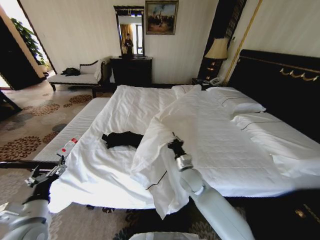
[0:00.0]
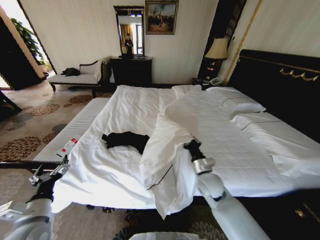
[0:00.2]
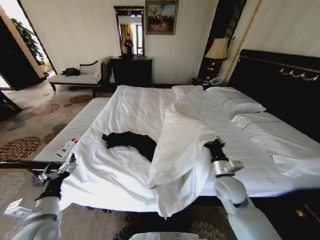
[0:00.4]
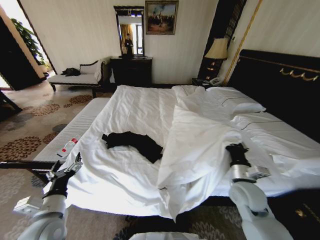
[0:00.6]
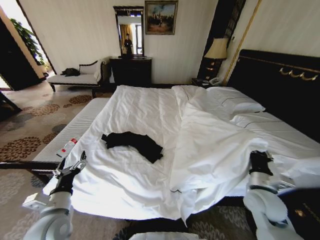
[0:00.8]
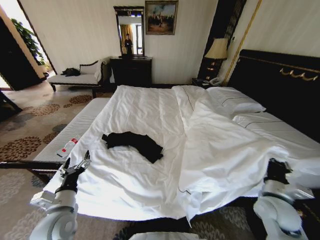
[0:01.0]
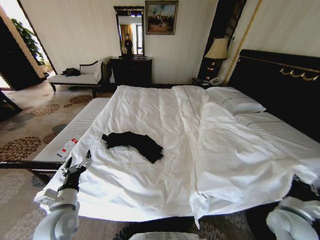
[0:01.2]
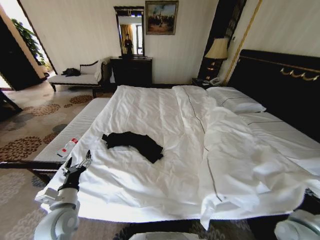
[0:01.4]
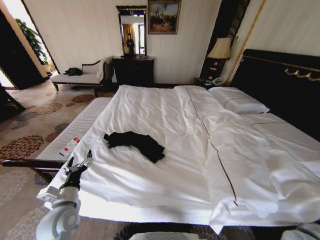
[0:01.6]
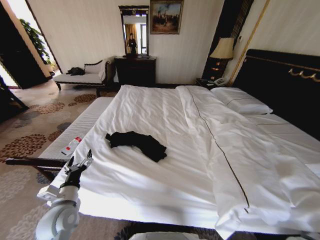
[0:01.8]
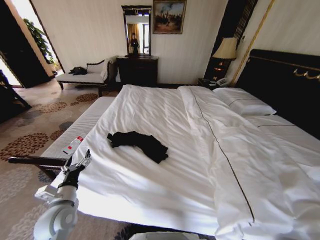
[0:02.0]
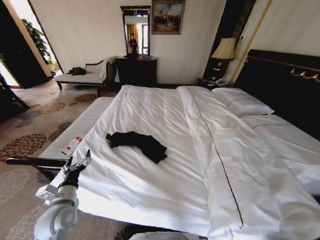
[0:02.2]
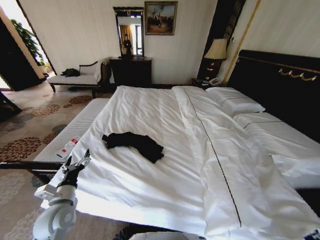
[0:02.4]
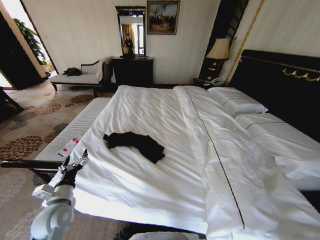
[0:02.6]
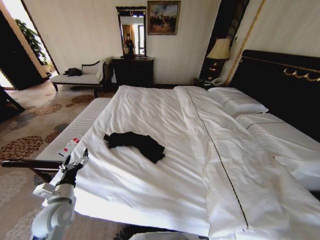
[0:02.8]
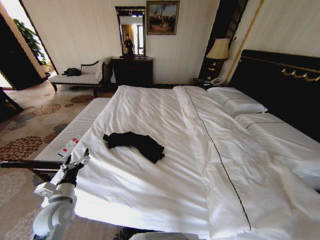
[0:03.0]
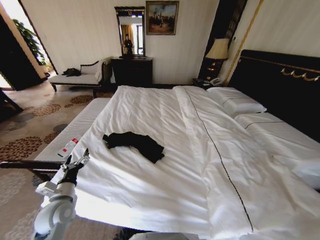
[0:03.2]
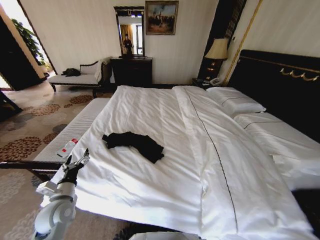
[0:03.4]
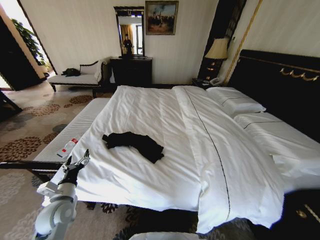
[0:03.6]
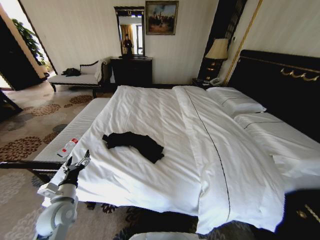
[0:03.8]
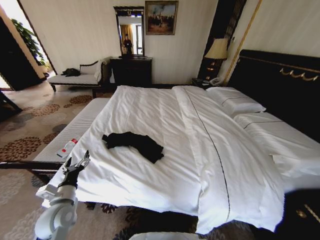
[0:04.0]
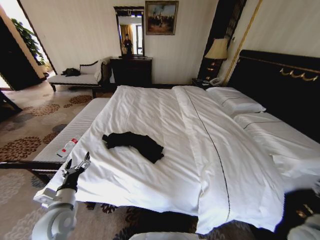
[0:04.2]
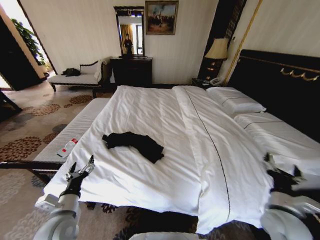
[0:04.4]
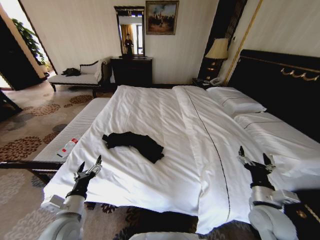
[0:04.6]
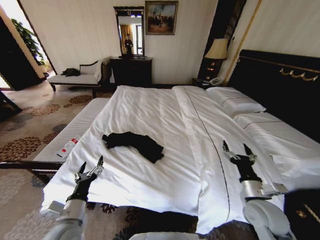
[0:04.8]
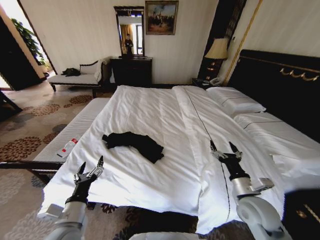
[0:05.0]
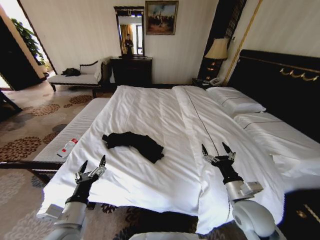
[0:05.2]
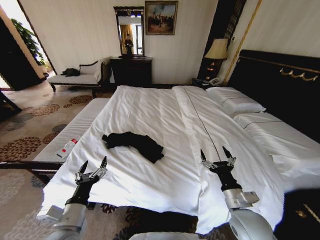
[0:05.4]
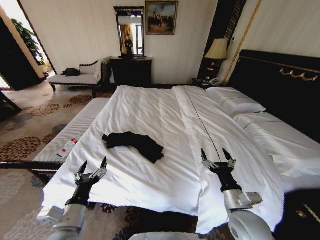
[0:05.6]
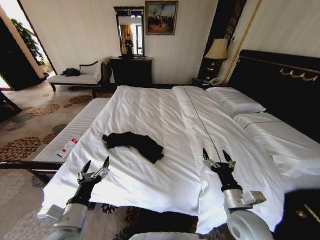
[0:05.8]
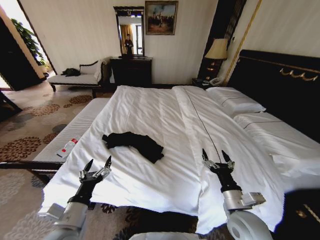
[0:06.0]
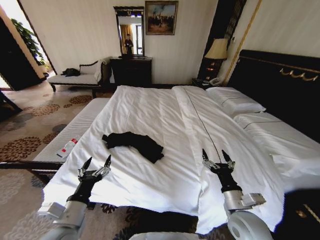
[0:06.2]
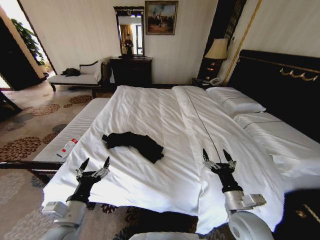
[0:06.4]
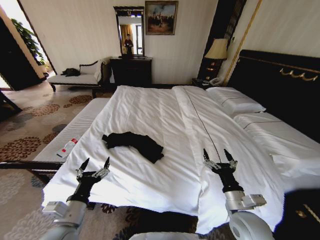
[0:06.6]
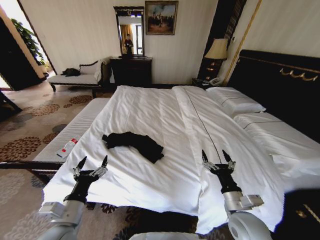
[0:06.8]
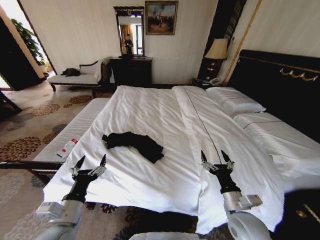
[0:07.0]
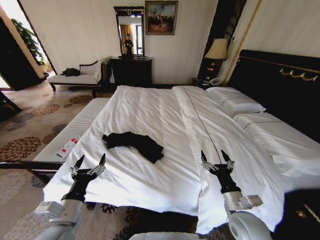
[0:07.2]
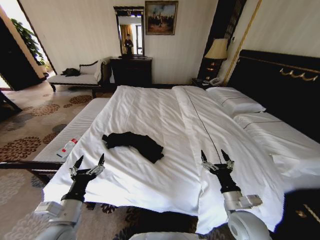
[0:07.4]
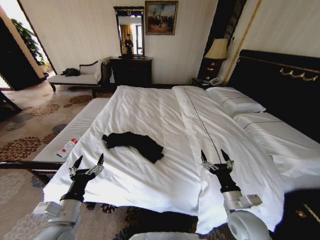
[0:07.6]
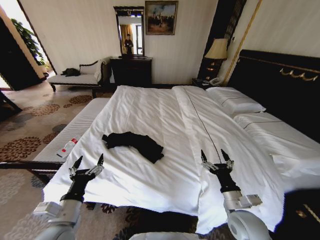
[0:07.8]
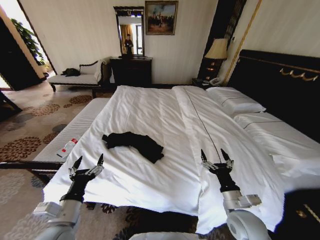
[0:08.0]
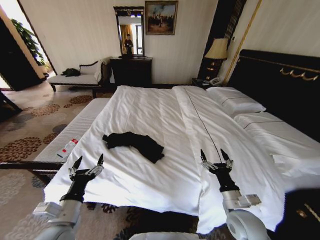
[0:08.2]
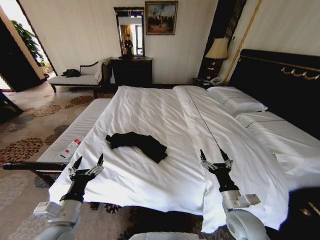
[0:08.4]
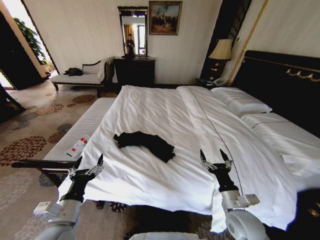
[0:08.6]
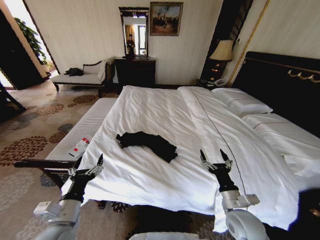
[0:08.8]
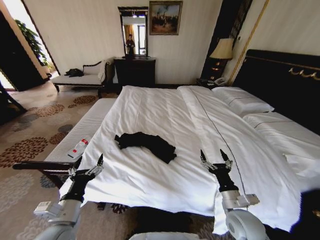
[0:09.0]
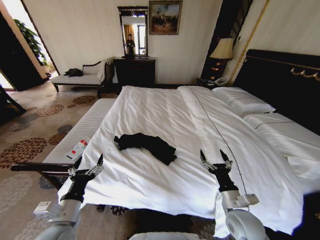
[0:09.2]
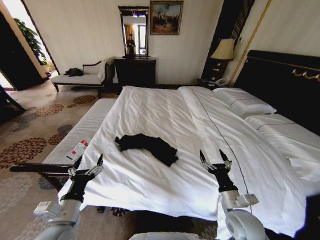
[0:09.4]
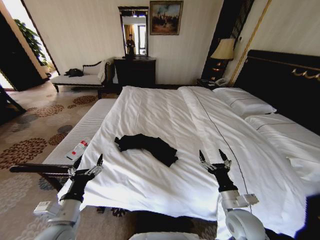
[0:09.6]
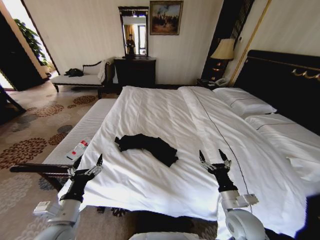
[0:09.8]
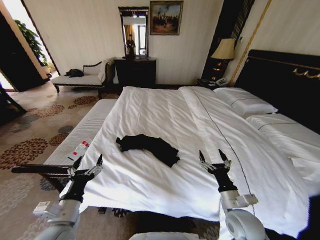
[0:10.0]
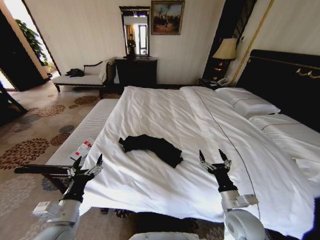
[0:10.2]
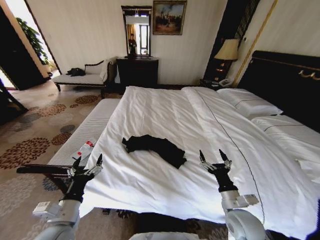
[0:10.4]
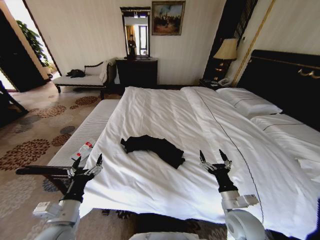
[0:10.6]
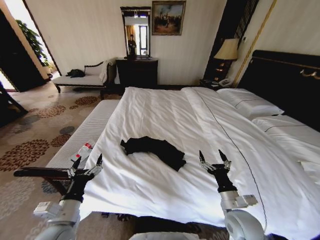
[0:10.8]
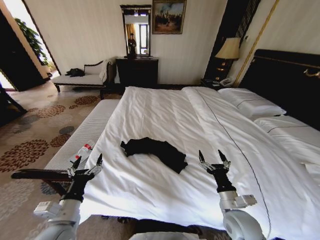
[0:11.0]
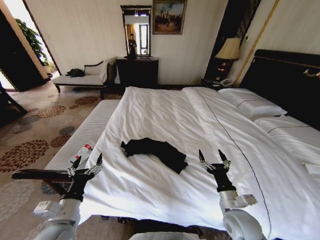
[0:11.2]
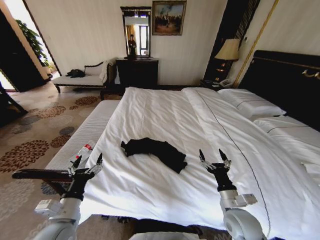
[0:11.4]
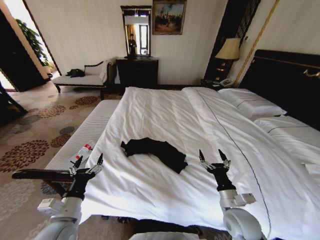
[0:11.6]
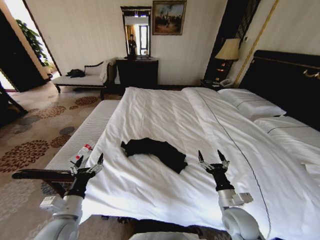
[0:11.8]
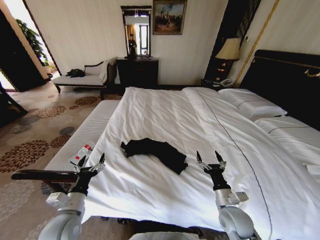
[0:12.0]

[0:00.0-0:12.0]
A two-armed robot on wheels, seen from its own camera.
Task of the whole recording: Fold the clothes on the bed.
0:00.0 to 0:01.6: The left gripper shifts by about 10 cm. Meanwhile the right gripper heads to the right and backward, covering roughly 40 cm.
0:01.6 to 0:03.0: The right gripper travels backward by approximately 5 cm, reaches about 10 cm downward, then returns, and opens its fingers.
0:03.0 to 0:04.4: The left gripper shifts by about 5 cm. The right gripper shifts some 15 cm forward, to the left and upward.
0:04.4 to 0:06.0: The left gripper ends up roughly 5 cm from where it was. Meanwhile the right gripper is displaced to the left by some 15 cm.
0:06.0 to 0:07.6: The grippers stay close to where they were, moving slightly.

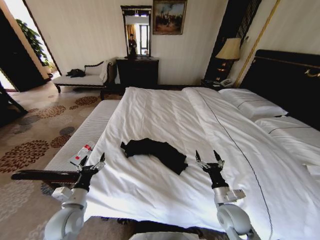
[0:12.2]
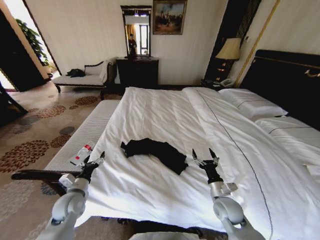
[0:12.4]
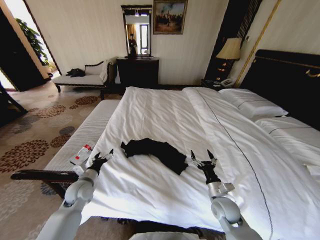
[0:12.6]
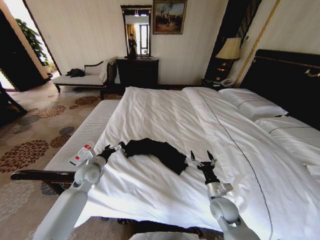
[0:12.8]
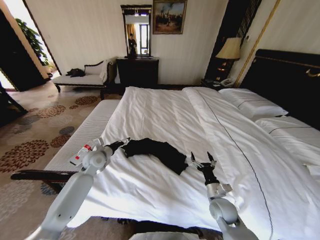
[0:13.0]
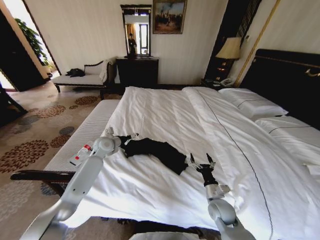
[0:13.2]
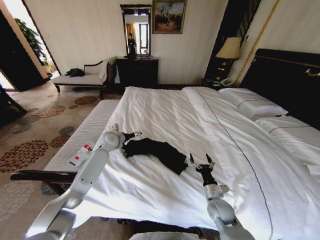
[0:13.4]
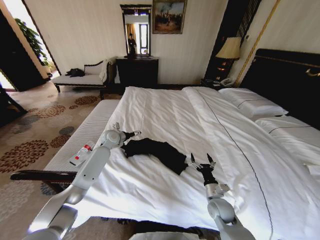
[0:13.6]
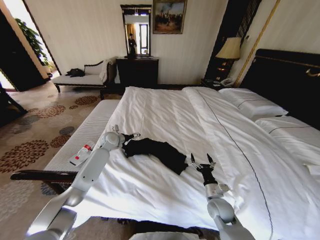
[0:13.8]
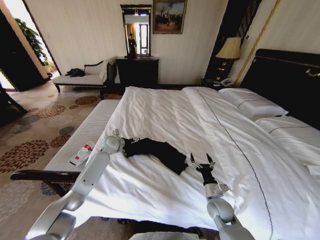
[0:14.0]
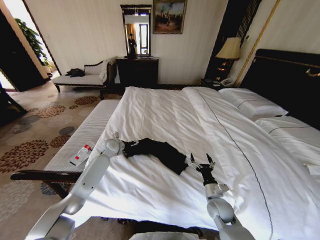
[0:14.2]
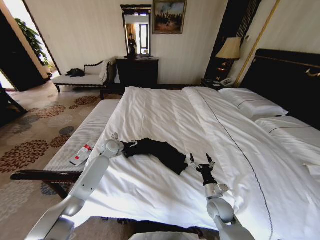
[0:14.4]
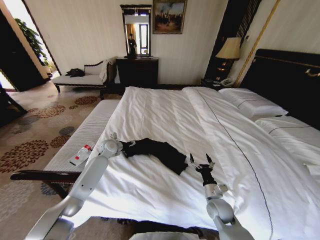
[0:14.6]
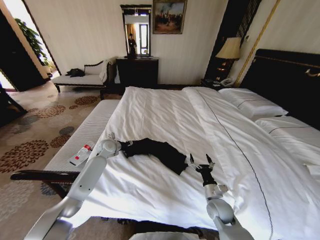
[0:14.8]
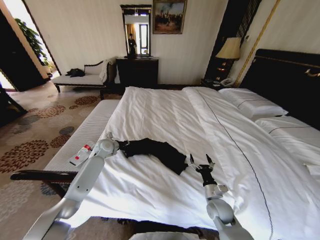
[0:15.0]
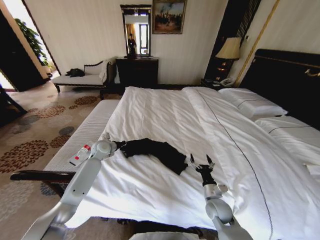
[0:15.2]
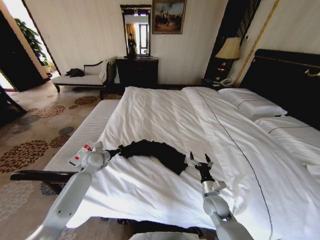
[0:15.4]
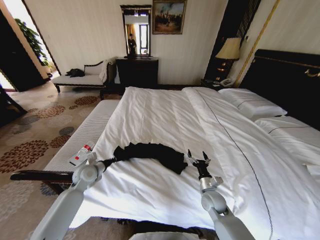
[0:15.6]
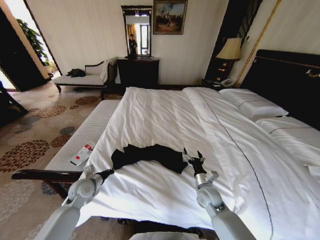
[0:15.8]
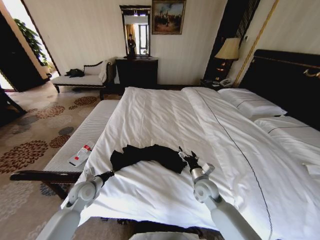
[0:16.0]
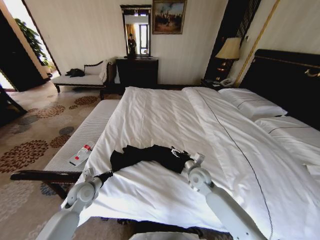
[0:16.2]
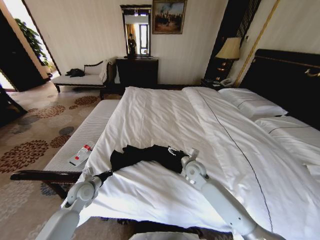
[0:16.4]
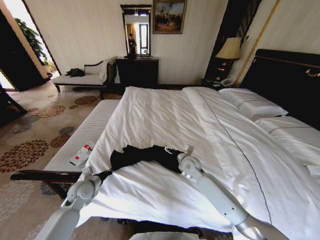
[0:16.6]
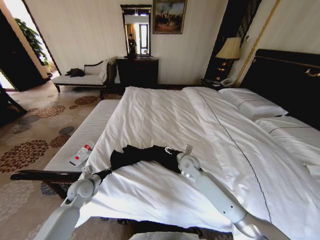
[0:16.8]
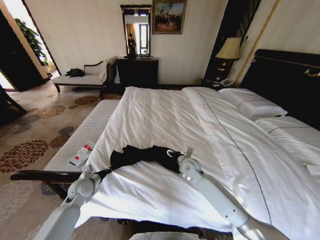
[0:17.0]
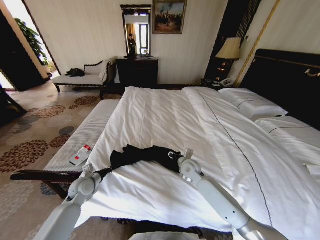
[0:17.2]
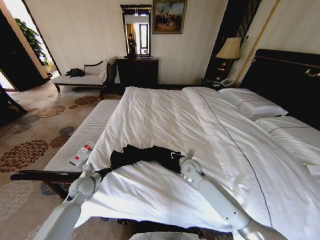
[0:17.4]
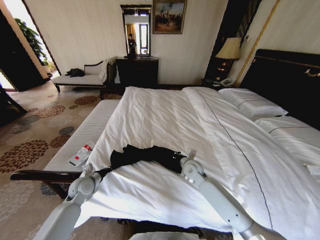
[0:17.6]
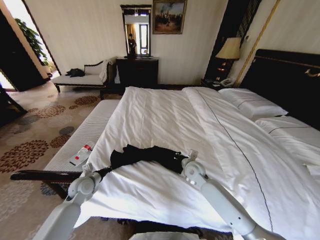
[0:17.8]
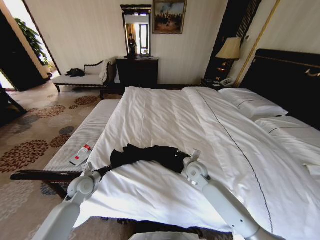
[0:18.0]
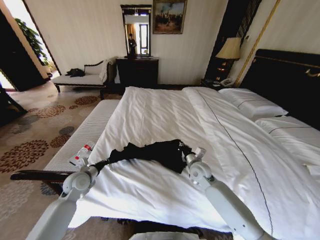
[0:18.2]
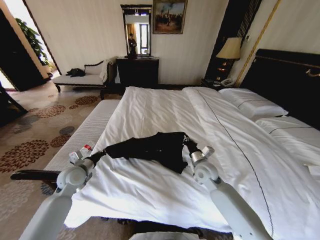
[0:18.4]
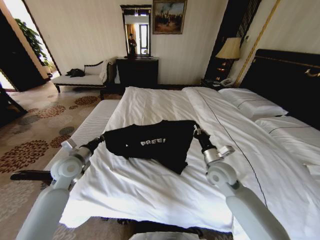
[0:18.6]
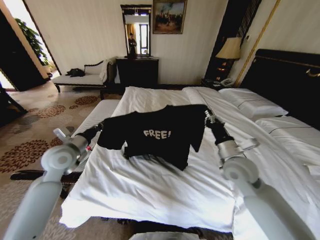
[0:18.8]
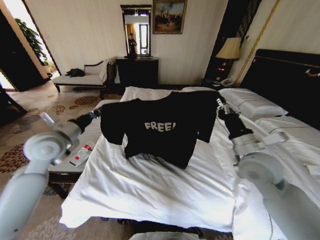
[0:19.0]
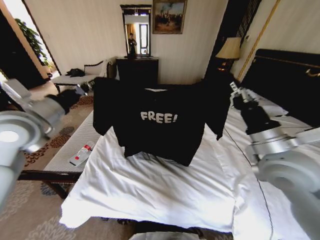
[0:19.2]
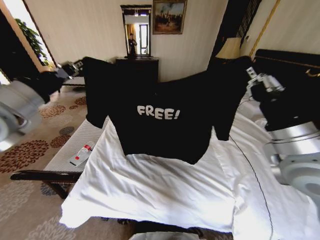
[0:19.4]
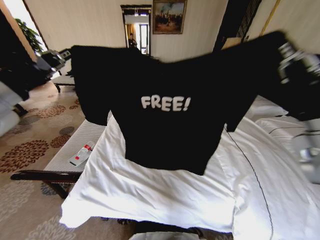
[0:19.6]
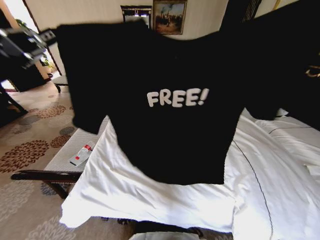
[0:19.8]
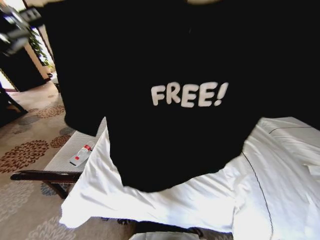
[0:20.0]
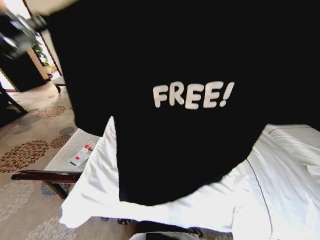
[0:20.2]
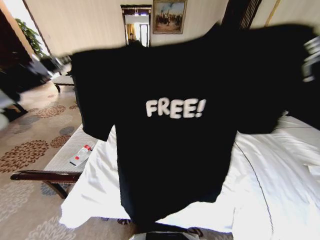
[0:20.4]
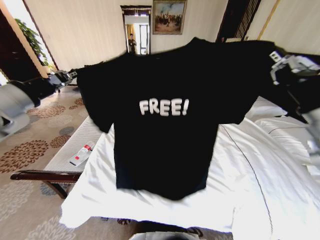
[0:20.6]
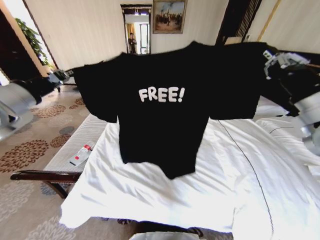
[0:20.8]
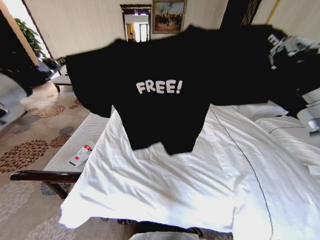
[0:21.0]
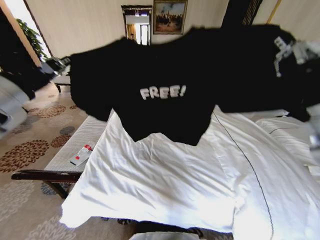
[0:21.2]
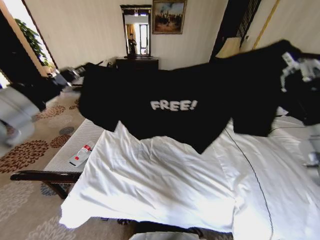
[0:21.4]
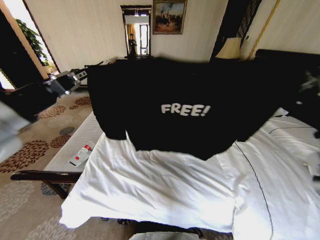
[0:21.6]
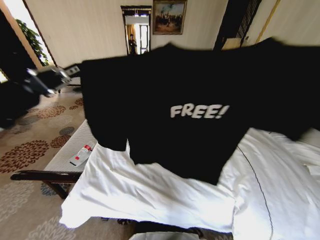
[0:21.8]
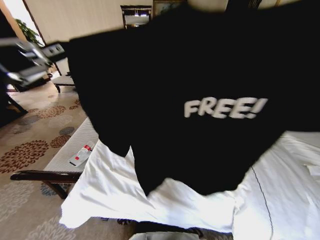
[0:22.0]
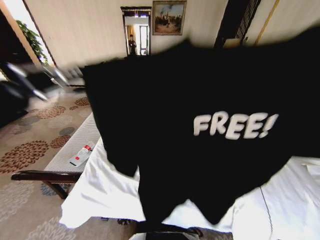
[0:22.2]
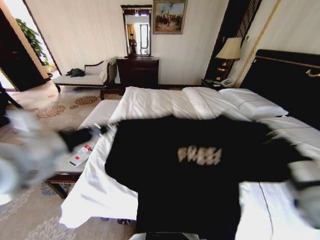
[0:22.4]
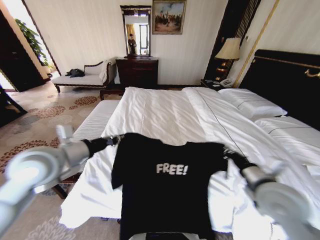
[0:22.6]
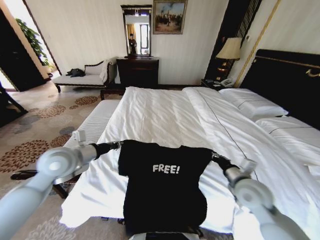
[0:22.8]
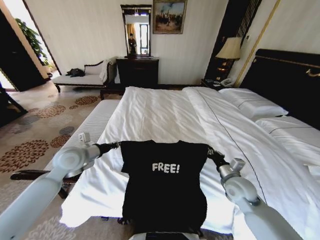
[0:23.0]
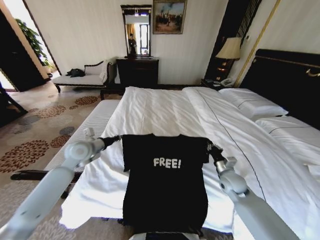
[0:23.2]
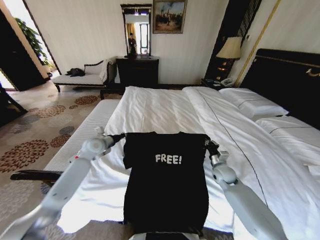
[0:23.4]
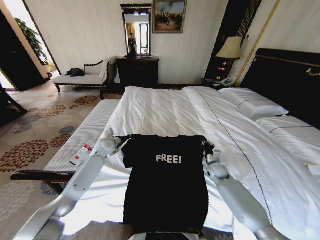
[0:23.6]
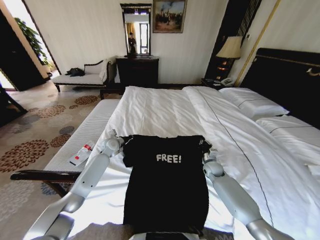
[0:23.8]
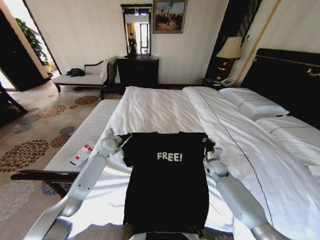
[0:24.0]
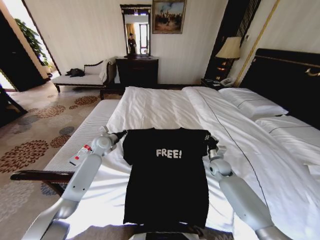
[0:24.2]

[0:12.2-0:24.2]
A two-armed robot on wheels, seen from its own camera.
Task of the whole recording: Fold the clothes on the bed.
0:12.2 to 0:13.8: The right gripper moves downward, roughly 5 cm. The left gripper heads forward, covering roughly 35 cm.
0:13.8 to 0:15.2: The left gripper moves about 5 cm, and closes.
0:15.2 to 0:16.6: The right gripper moves forward, to the left and upward, some 20 cm. Meanwhile the left gripper shifts roughly 20 cm backward.
0:16.6 to 0:18.2: The right gripper closes.
0:18.2 to 0:19.8: The right gripper heads upward and backward, covering roughly 40 cm. Meanwhile the left gripper heads upward, covering approximately 40 cm.
0:19.8 to 0:21.2: The right gripper shifts roughly 5 cm forward. The left gripper travels forward by some 10 cm.
0:21.2 to 0:22.6: The left gripper heads downward and to the right, covering some 15 cm, while the right gripper heads downward, covering roughly 20 cm.
0:22.6 to 0:24.2: Both grippers move forward and downward, roughly 30 cm.
